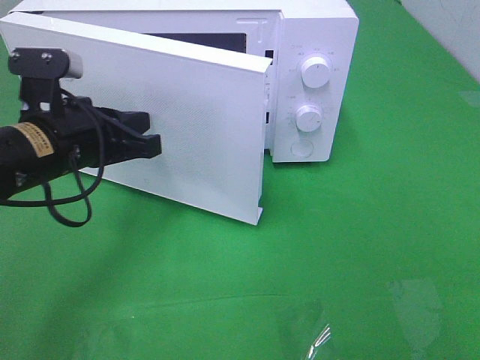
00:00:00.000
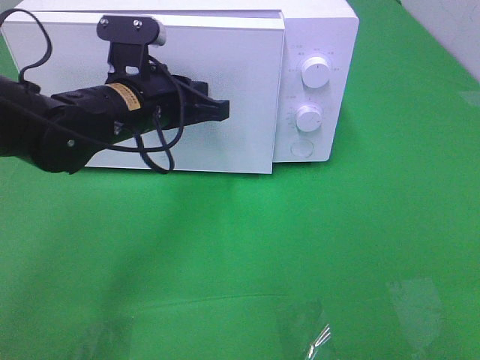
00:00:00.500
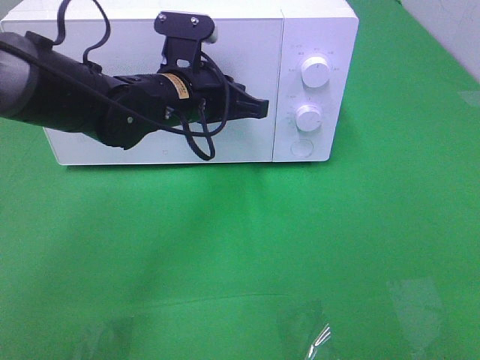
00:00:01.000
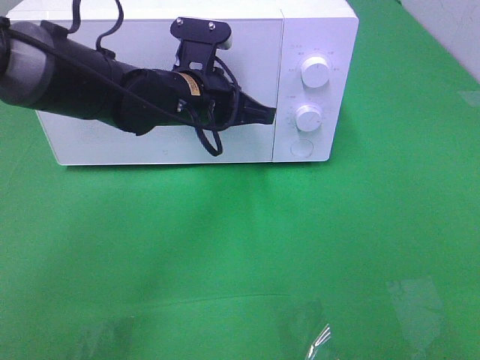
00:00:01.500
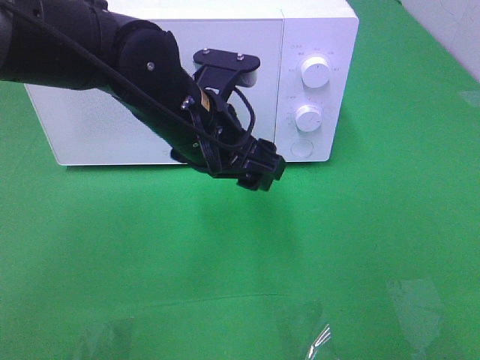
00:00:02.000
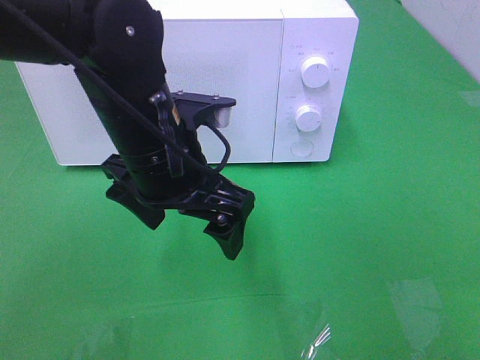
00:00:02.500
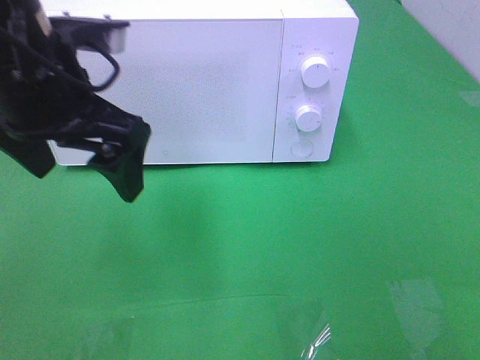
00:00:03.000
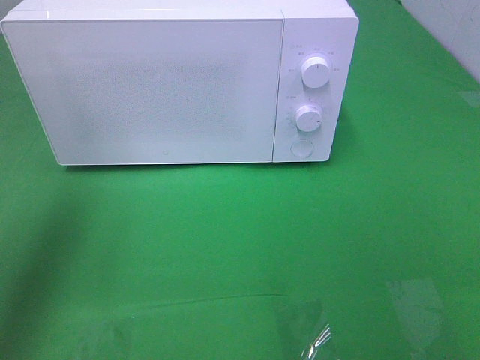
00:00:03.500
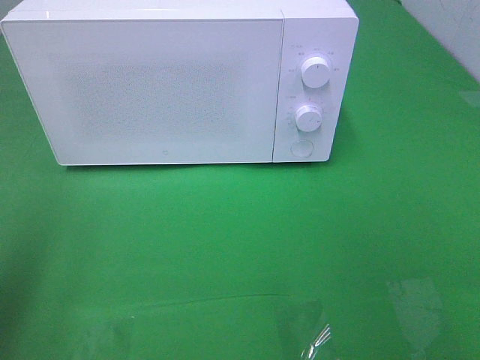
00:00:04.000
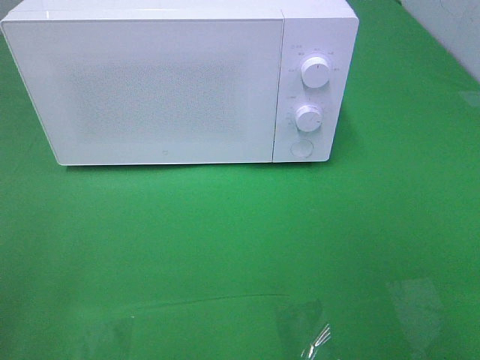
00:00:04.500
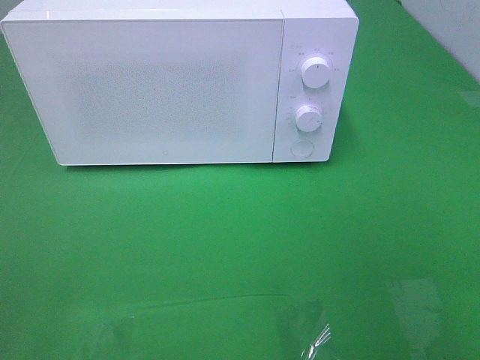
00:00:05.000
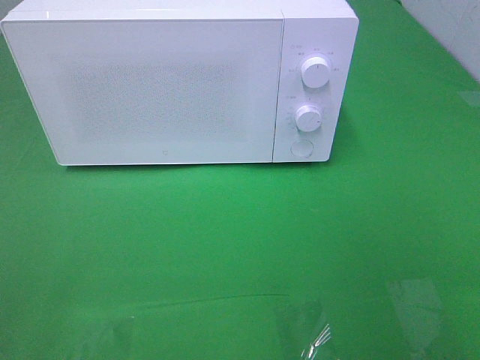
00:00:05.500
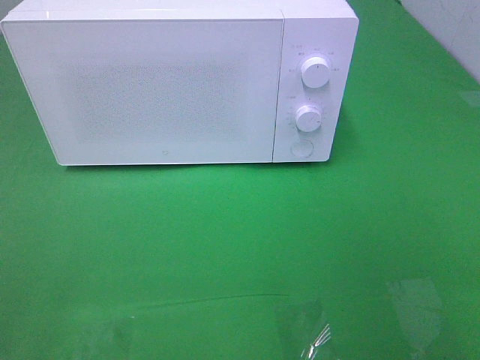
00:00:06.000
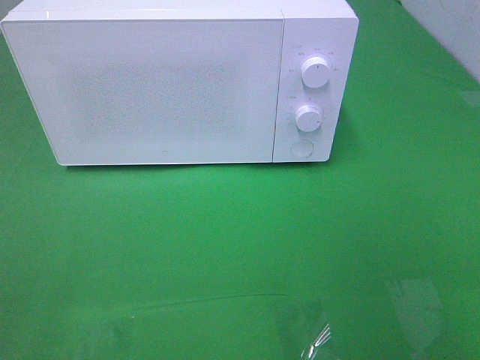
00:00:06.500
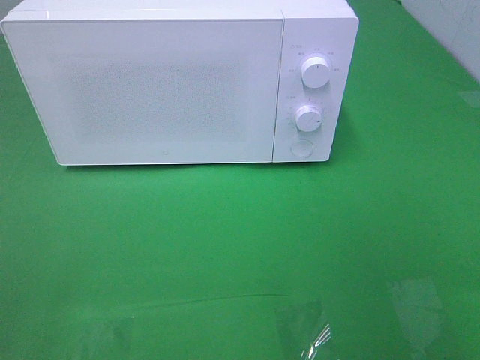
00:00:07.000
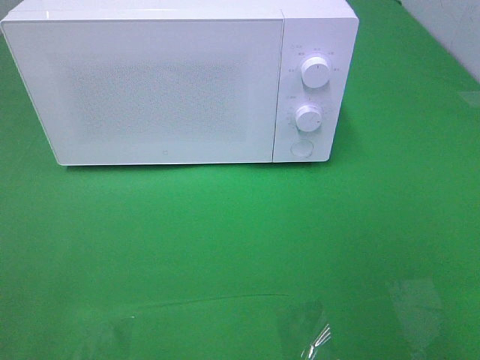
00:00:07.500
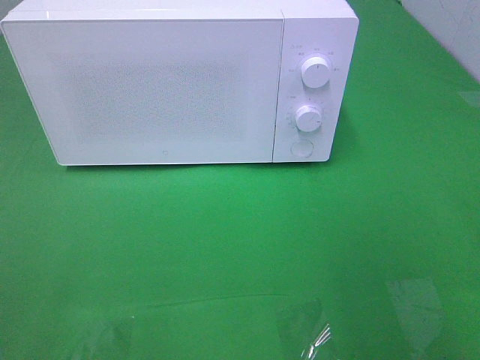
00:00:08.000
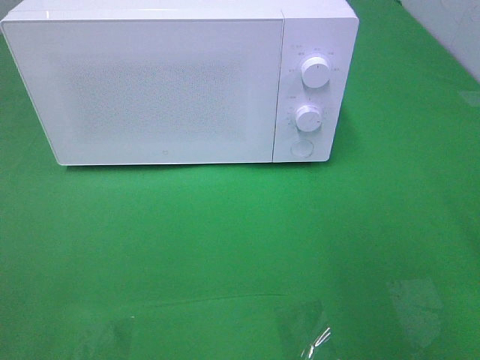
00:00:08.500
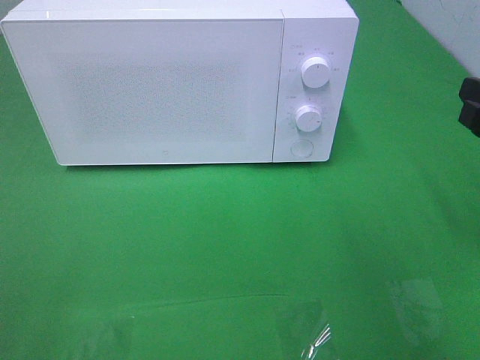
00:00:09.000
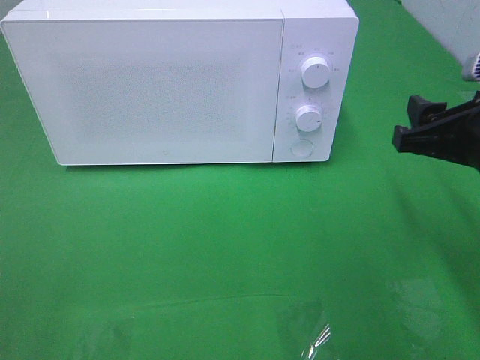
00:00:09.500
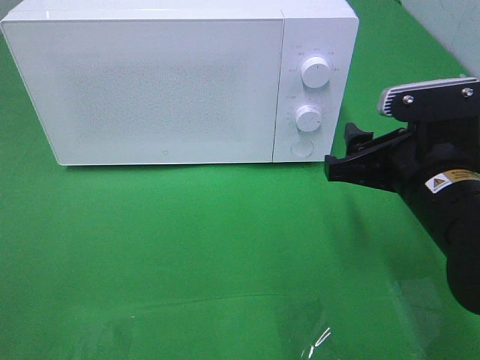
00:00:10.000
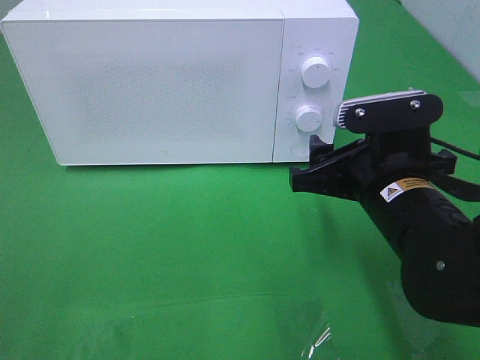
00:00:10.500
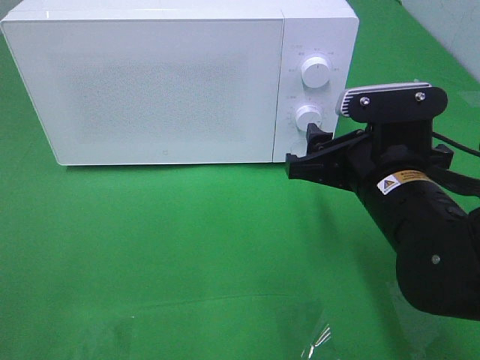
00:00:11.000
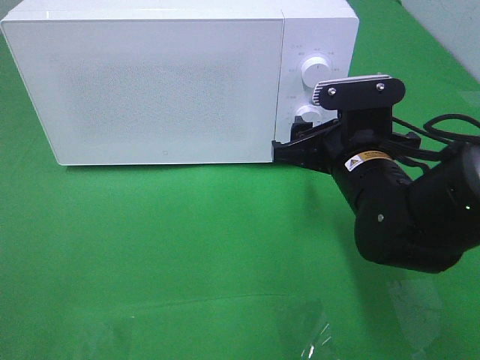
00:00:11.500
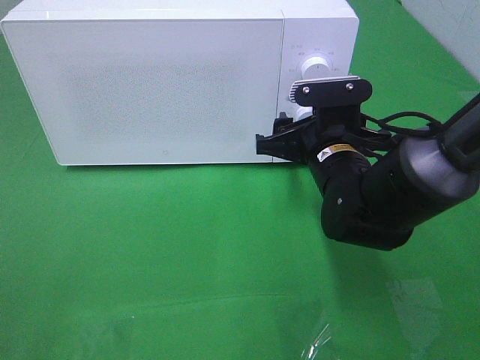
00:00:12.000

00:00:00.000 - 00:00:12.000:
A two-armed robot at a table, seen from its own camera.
Task of the whole recording: Heat the burger.
Step, 00:00:00.000 - 00:00:02.000: Left hand: close the microwave door.
00:00:00.000 - 00:00:02.000: The left gripper shifts some 10 cm to the right, and opens its fingers.
00:00:02.000 - 00:00:04.000: The left gripper goes some 35 cm to the left, backward and upward.
00:00:04.000 - 00:00:06.000: The left gripper heads backward, covering roughly 15 cm.
00:00:08.000 - 00:00:10.000: The right gripper moves downward, to the left and forward, approximately 20 cm.
00:00:10.000 - 00:00:12.000: The right gripper heads forward and to the left, covering approximately 10 cm.

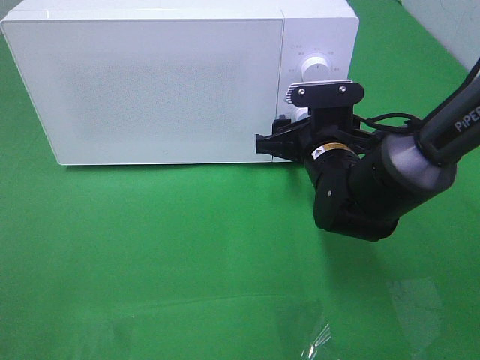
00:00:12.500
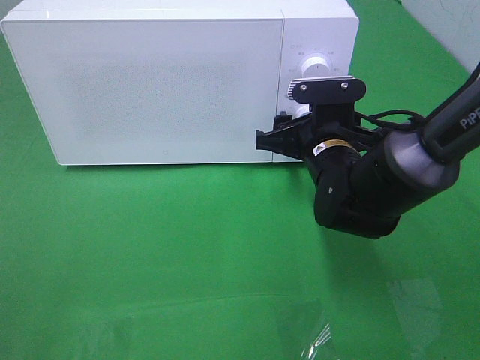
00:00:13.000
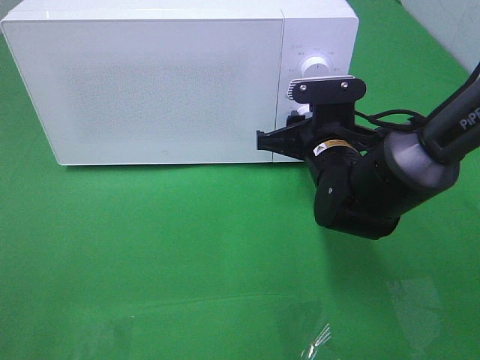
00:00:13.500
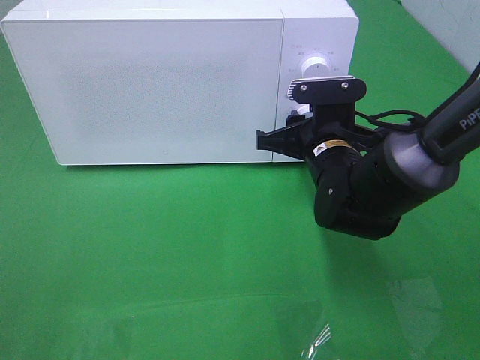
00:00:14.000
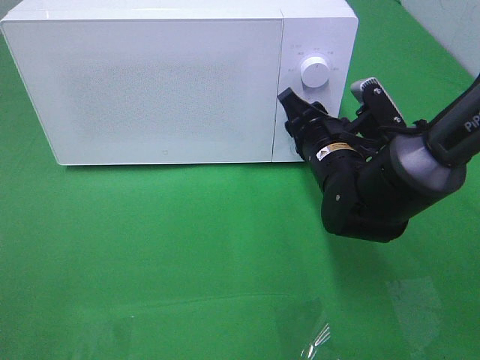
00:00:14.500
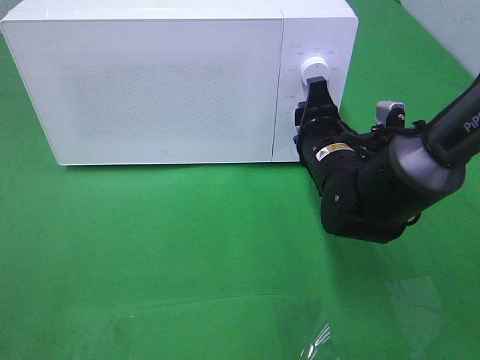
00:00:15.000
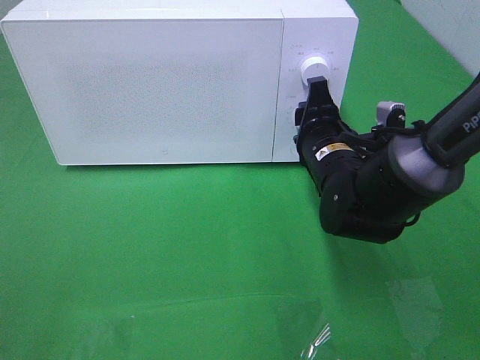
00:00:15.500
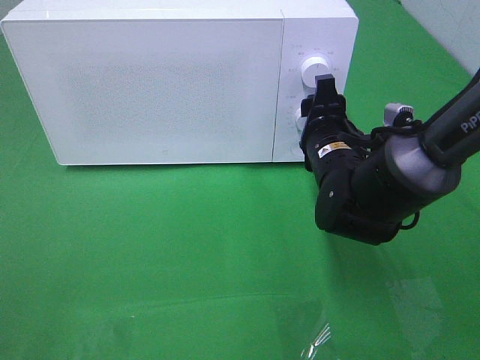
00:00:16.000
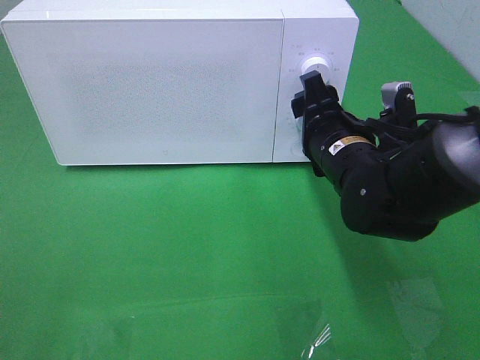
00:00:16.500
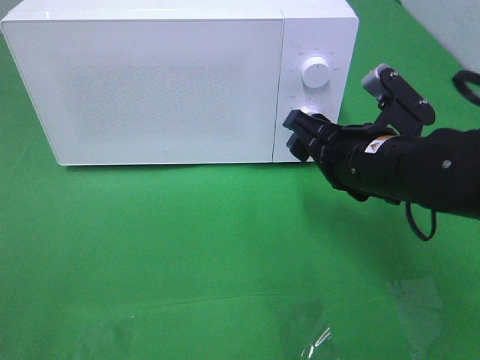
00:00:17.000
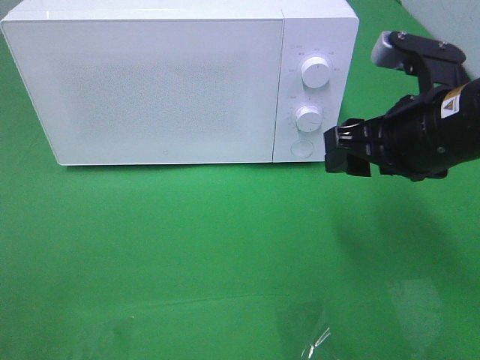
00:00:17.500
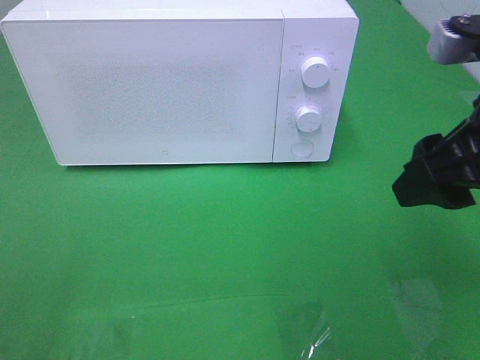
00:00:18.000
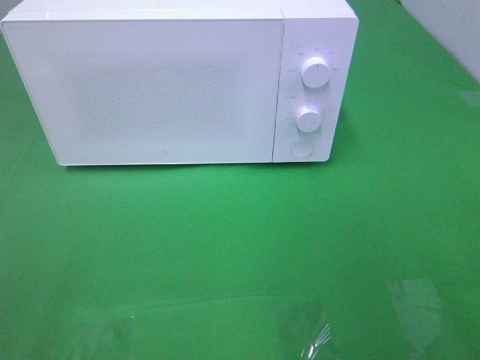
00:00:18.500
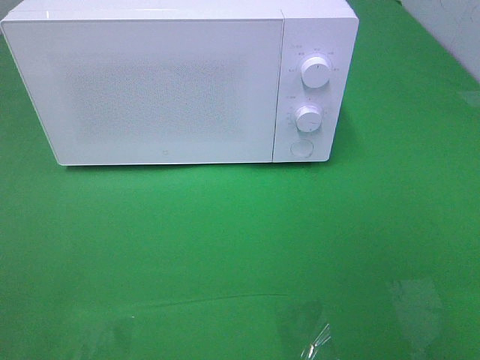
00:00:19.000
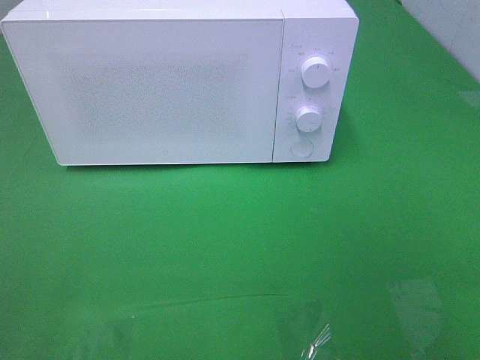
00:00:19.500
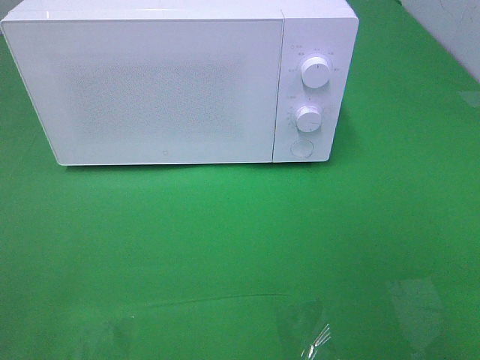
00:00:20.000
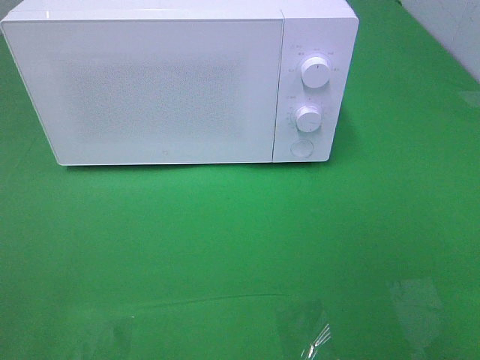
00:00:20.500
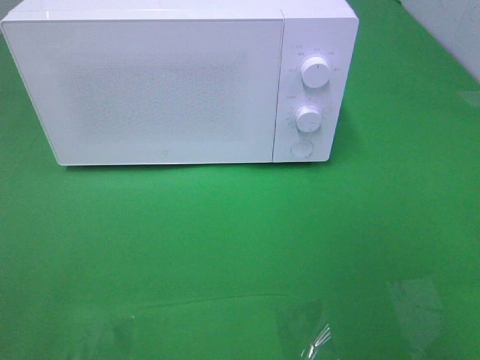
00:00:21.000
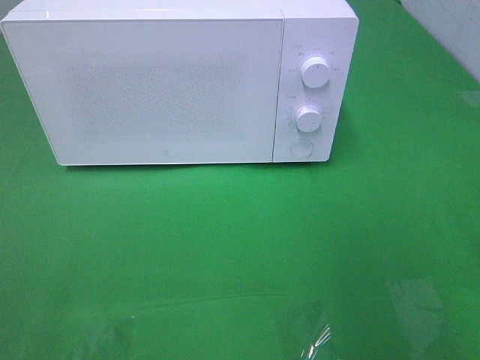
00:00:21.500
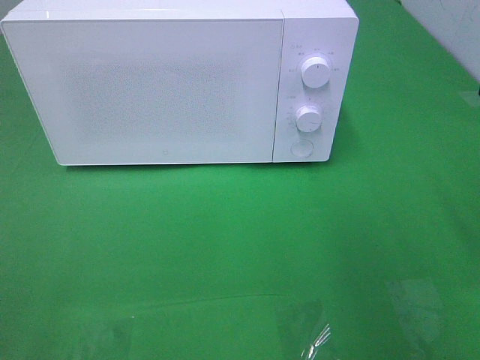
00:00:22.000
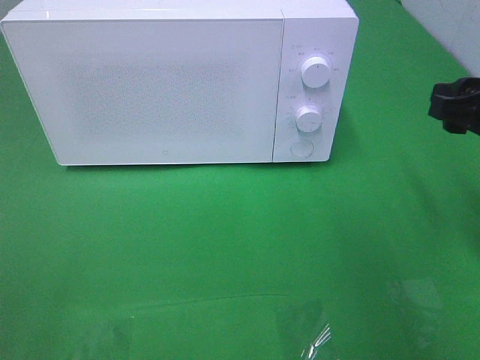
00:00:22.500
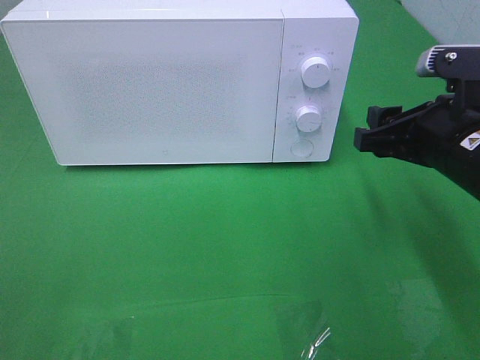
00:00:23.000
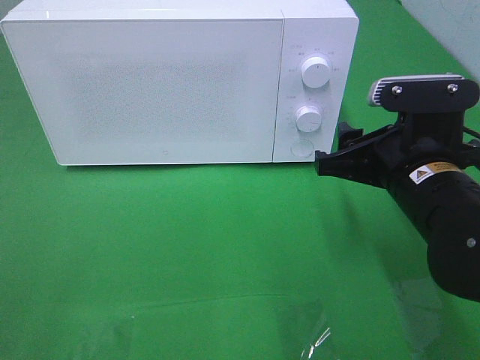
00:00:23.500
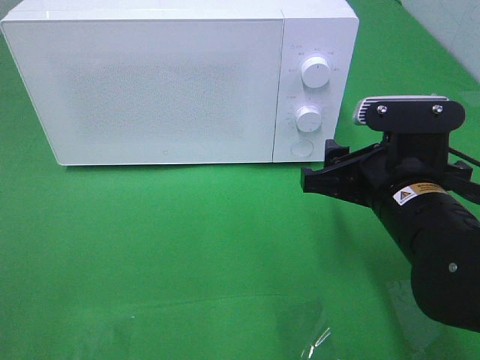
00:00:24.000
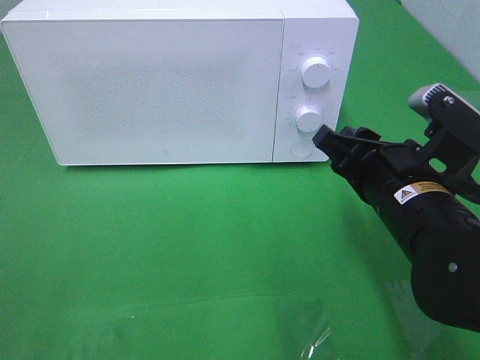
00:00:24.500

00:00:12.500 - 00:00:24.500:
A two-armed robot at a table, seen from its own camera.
Task of the whole recording: Heat the burger.
Step, 00:00:12.500 - 00:00:16.000: Right hand: twist timer button.
00:00:16.500 - 00:00:18.500: The right gripper shifts about 30 cm backward, upward and to the right.
00:00:20.500 - 00:00:22.500: The right gripper goes about 25 cm forward.
00:00:22.500 - 00:00:24.500: The right gripper travels to the left and downward by approximately 15 cm.

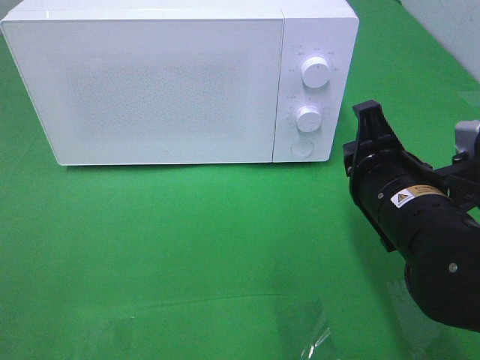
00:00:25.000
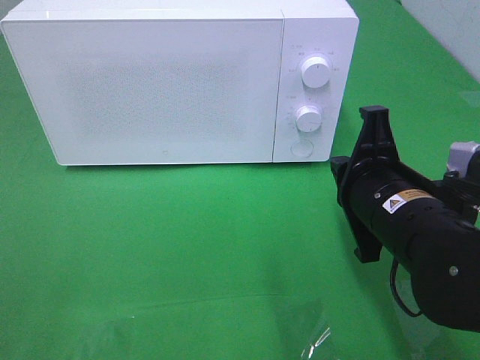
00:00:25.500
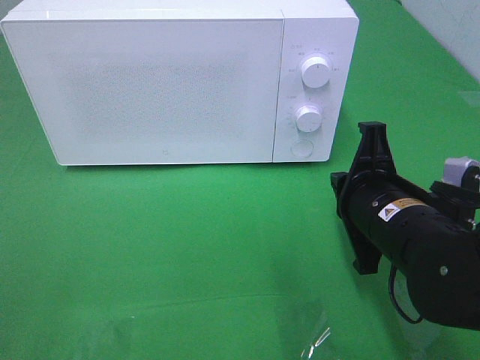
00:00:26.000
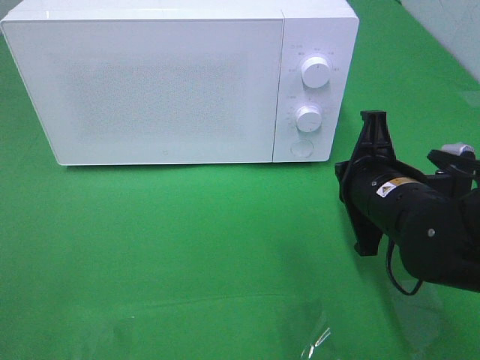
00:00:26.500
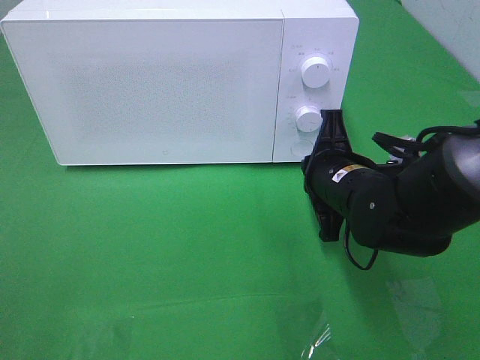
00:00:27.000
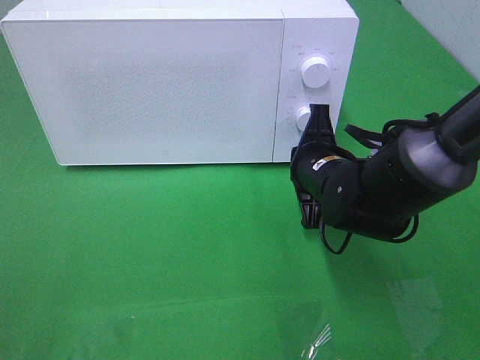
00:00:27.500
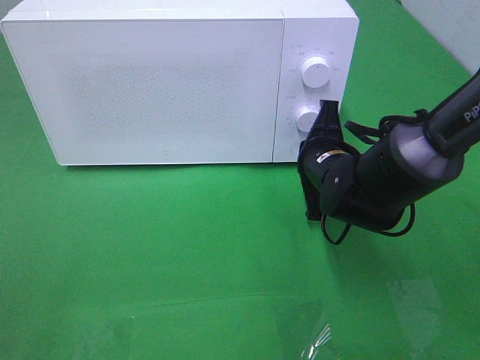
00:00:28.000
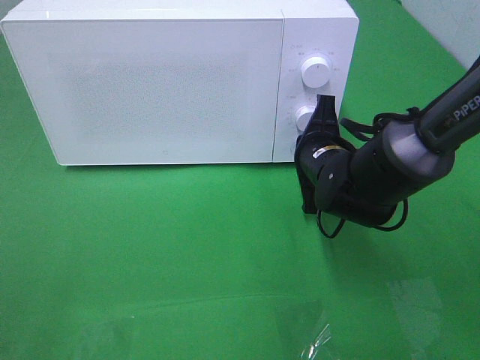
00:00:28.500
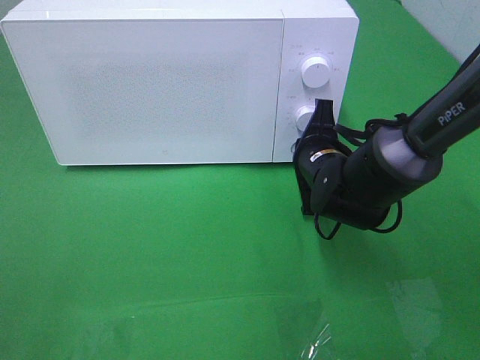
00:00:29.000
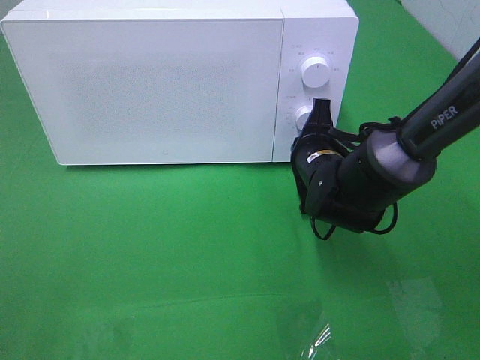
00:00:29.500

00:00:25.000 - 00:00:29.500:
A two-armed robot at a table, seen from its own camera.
Task of the whole recording: Heat the burger.
00:00:25.000 - 00:00:27.000: The right gripper goes roughly 5 cm forward.
00:00:27.000 - 00:00:29.500: The right gripper moves forward, roughly 5 cm.
